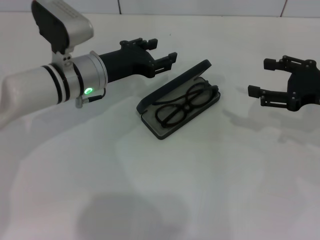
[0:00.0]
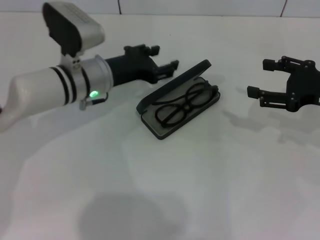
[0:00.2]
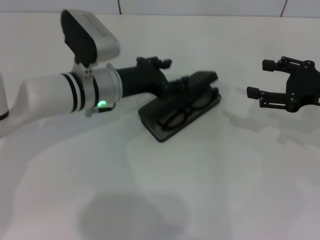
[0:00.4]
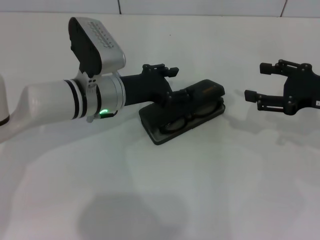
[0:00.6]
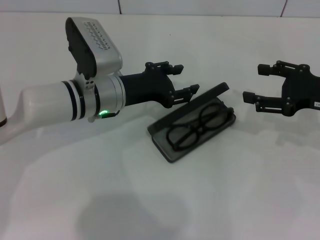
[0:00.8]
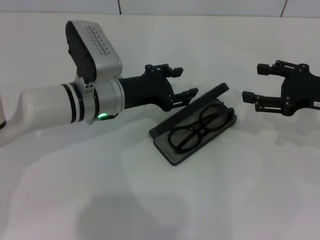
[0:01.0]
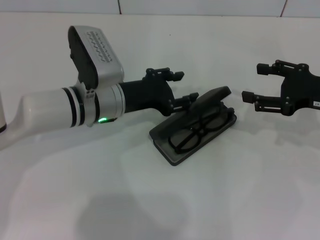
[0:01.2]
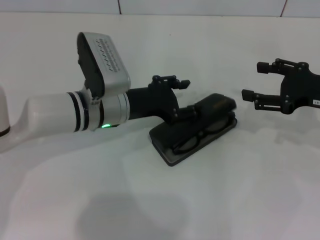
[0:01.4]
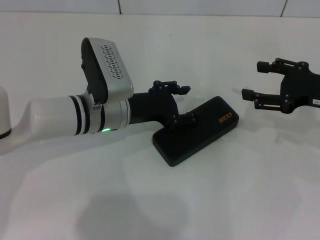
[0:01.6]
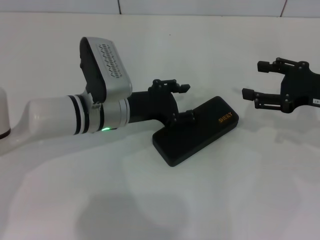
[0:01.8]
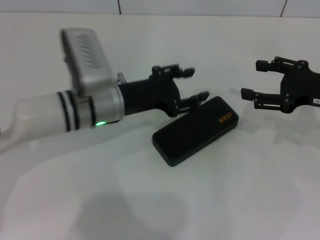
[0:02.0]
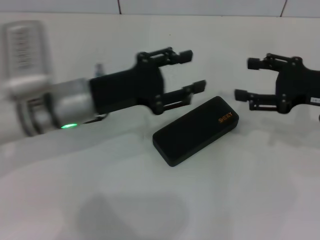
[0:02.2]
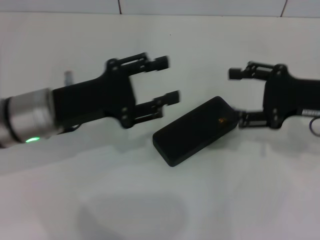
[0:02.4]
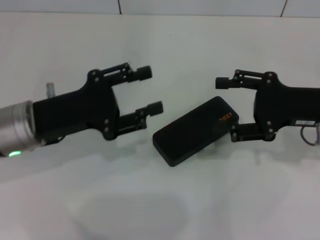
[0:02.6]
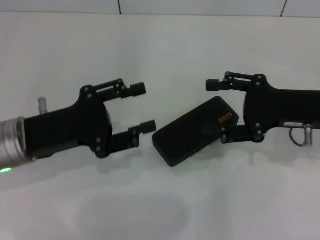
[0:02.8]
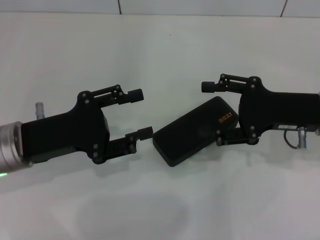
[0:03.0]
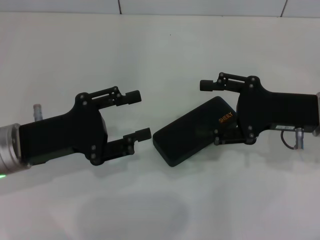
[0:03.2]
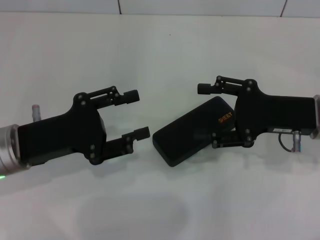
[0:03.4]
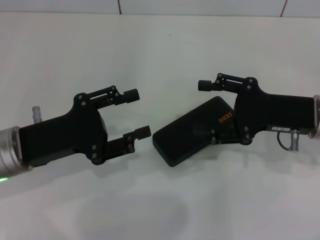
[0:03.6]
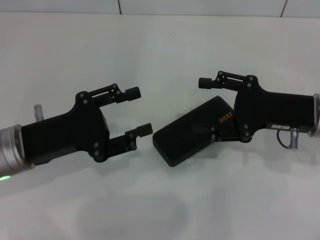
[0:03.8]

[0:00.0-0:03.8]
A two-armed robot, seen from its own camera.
Step, 0:00.0 to 0:01.6: Close the glasses case with your left hand.
0:01.2 to 0:02.6: The left gripper heads to the left and backward, covering approximately 10 cm.
0:02.6 to 0:03.8: The grippers make only small movements.

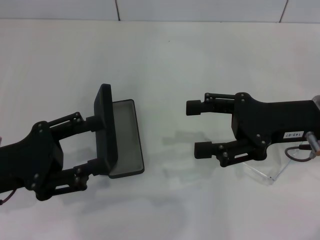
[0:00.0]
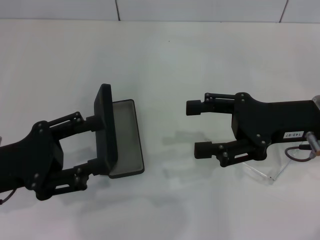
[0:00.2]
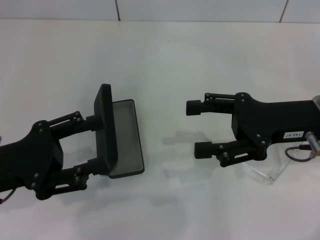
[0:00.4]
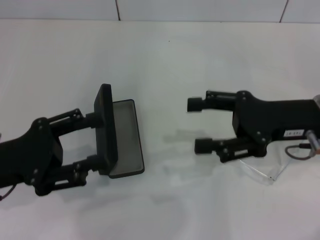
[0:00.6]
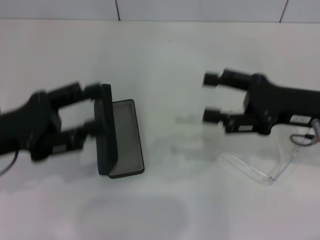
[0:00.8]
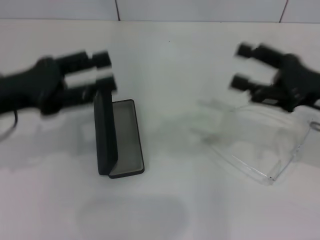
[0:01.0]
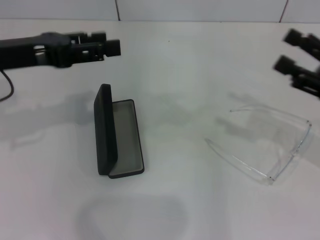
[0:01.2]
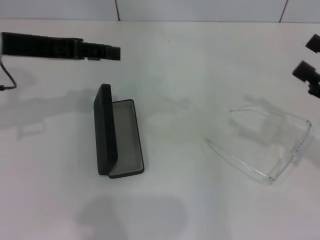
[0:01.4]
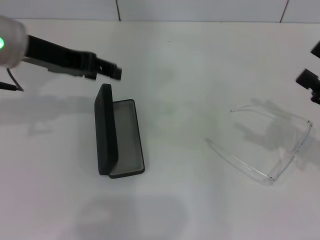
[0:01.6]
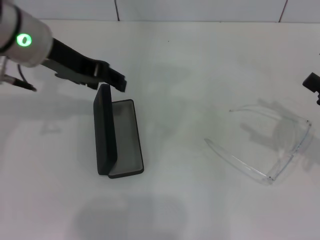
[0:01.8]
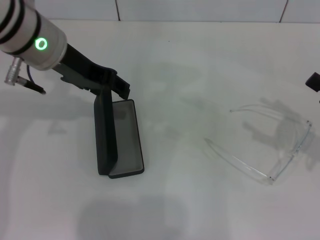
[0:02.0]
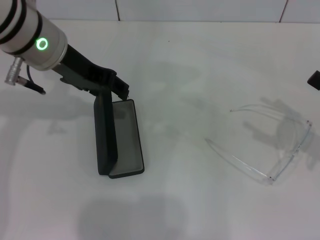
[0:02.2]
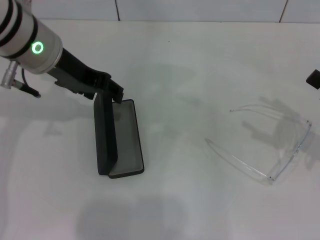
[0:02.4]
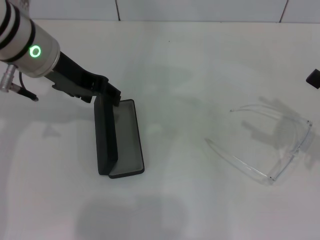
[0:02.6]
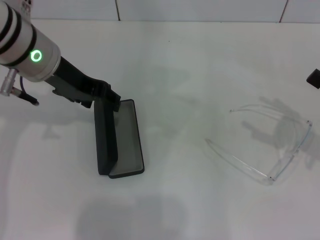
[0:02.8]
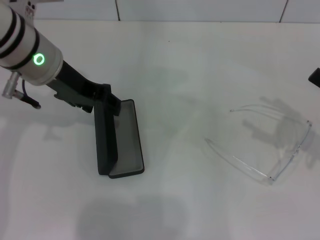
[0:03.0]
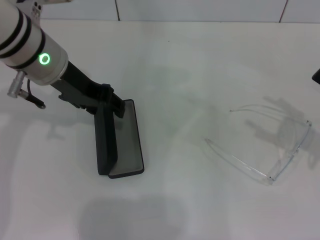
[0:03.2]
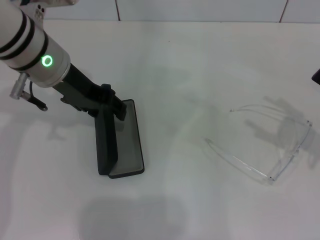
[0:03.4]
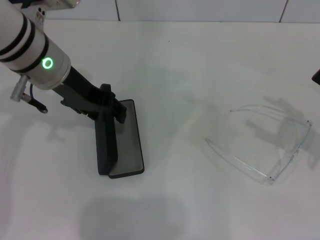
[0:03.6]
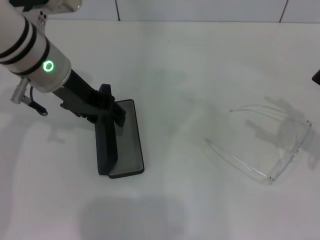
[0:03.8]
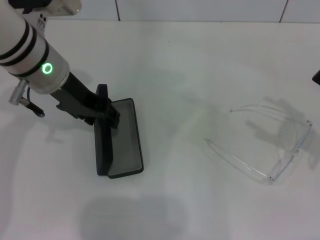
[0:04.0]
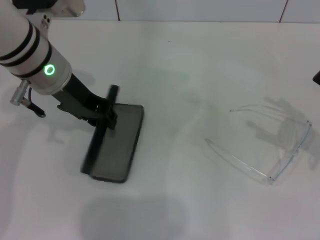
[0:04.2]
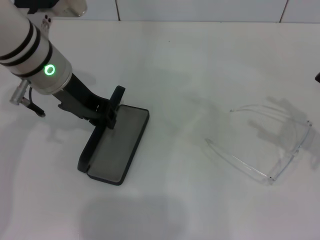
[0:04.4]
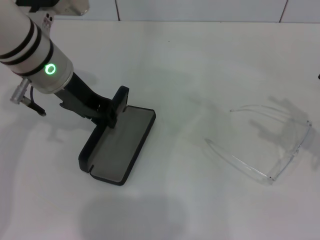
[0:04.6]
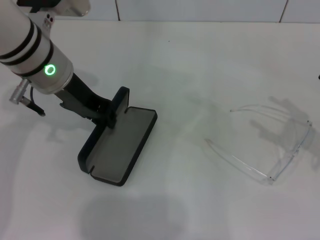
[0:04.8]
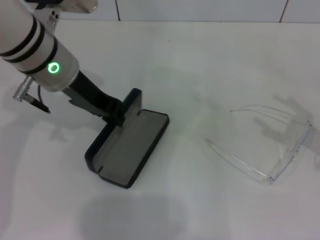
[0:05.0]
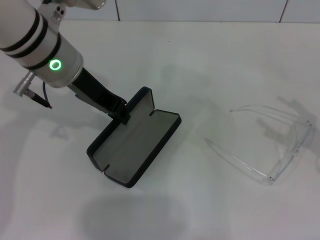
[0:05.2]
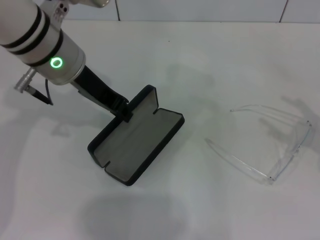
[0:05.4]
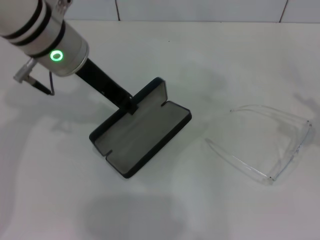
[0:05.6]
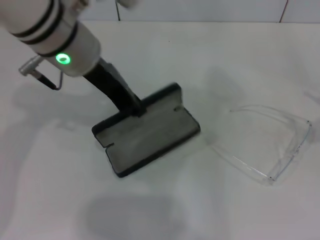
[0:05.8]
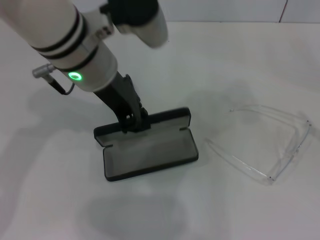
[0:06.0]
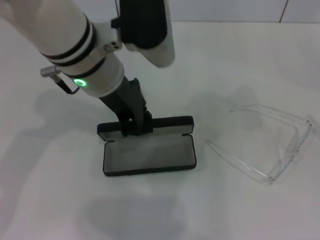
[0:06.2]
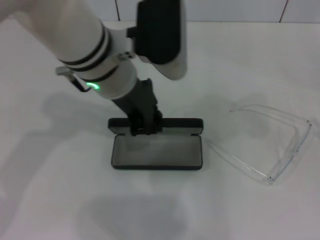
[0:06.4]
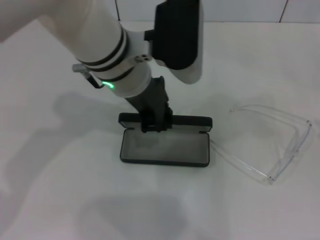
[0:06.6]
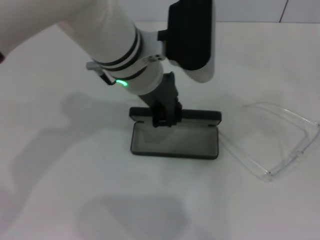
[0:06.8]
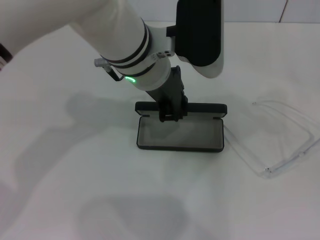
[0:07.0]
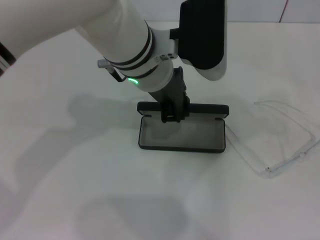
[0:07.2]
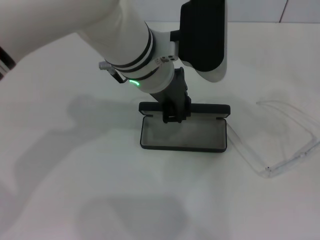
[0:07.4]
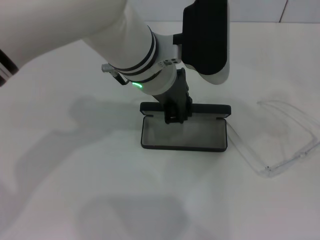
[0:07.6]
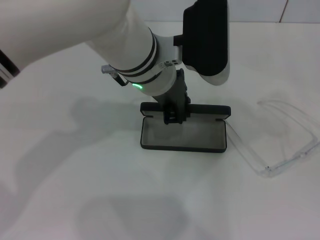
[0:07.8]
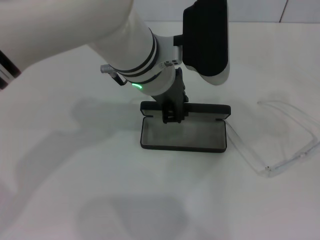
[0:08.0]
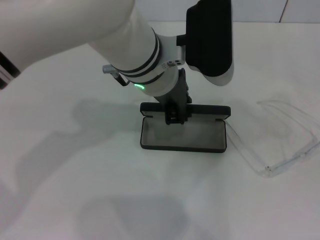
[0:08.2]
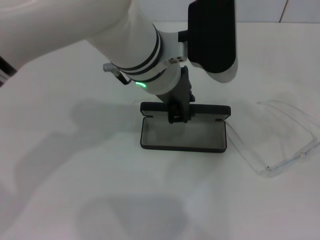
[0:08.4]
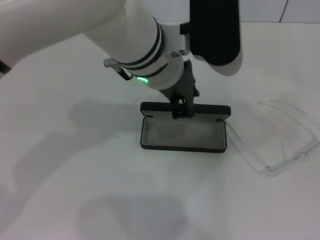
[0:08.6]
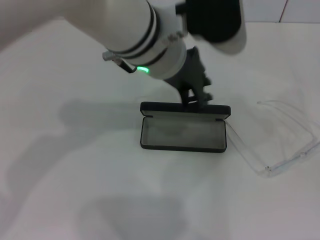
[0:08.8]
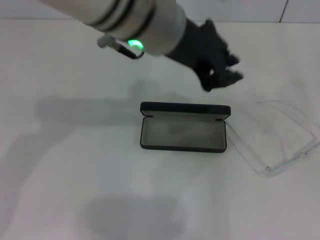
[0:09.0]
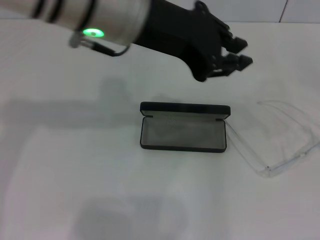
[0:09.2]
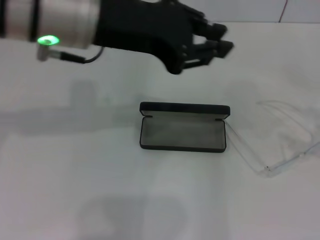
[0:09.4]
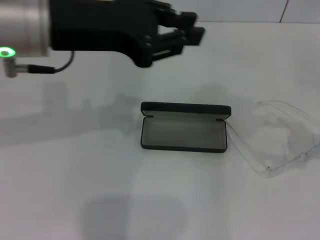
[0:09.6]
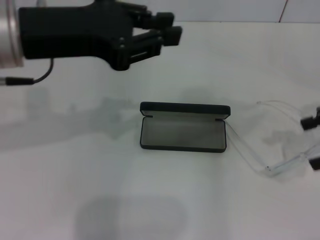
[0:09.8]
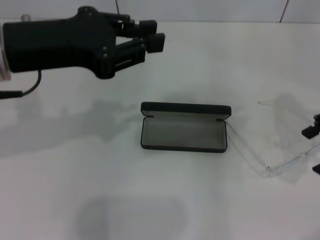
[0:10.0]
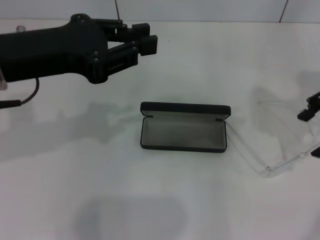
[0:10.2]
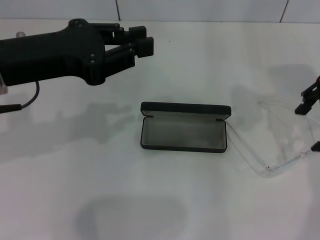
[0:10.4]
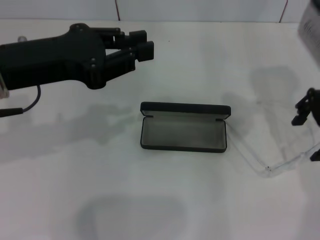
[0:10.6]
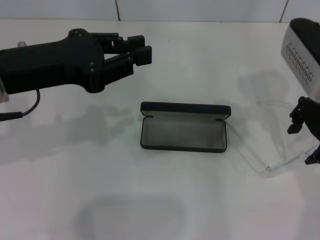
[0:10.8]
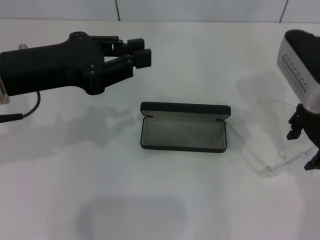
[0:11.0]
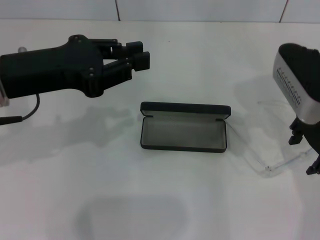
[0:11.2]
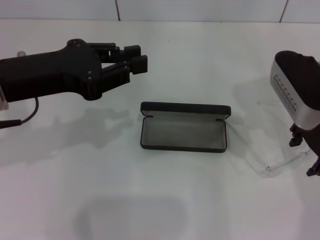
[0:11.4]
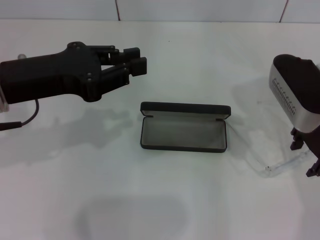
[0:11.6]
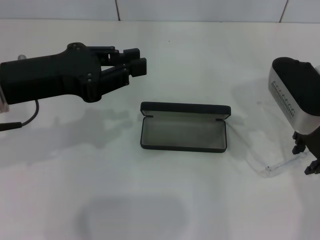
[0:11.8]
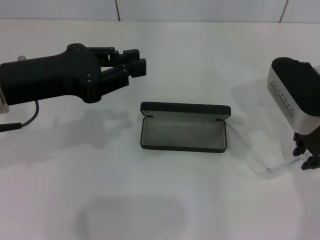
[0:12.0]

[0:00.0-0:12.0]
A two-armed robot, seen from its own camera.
Step, 0:00.0 to 0:04.6: Grab the glasses case with your left hand.
Step, 0:04.8 to 0:08.4: Place the glasses case in the center of the table with your left hand.
0:00.0 to 0:01.6: The left gripper heads forward, upward and to the right, covering about 20 cm, while the right gripper is displaced to the right by some 10 cm.
0:01.6 to 0:03.0: The grippers make only small movements.
0:03.0 to 0:04.4: The grippers move only a little.
0:04.4 to 0:06.0: The right gripper changes place by some 5 cm. Meanwhile the left gripper shifts about 5 cm to the right.
0:06.0 to 0:07.6: The left gripper shifts roughly 5 cm to the right.
0:07.6 to 0:09.0: The left gripper goes roughly 10 cm upward.
0:09.0 to 0:10.4: The right gripper shifts some 30 cm forward, to the left and upward, while the left gripper moves to the left, about 15 cm.
0:10.4 to 0:12.0: The right gripper shifts approximately 10 cm downward, and closes up.

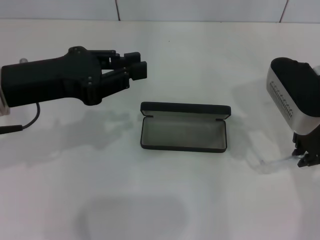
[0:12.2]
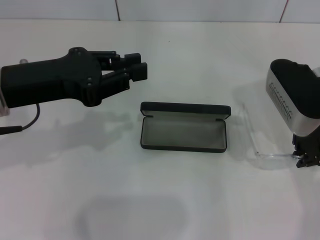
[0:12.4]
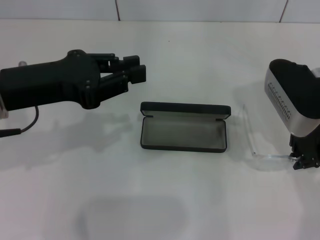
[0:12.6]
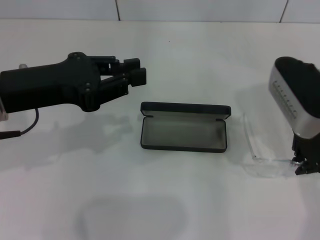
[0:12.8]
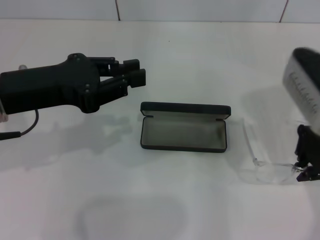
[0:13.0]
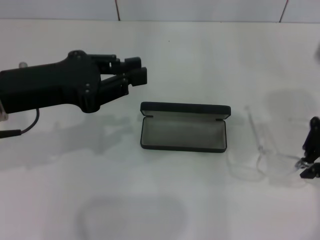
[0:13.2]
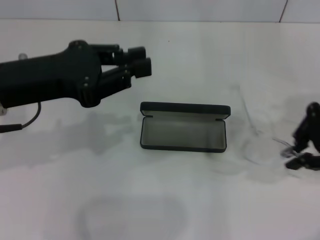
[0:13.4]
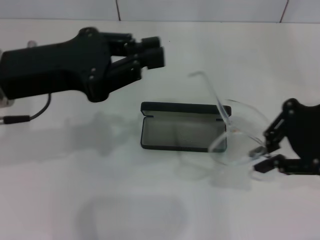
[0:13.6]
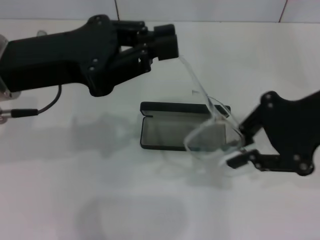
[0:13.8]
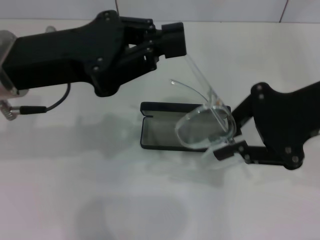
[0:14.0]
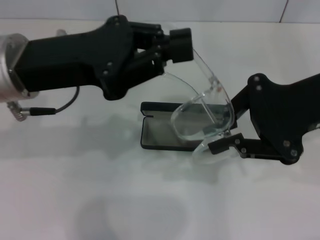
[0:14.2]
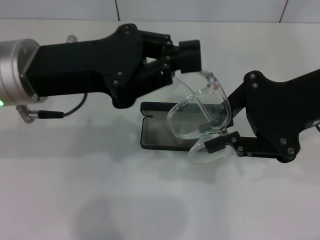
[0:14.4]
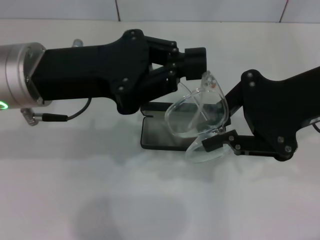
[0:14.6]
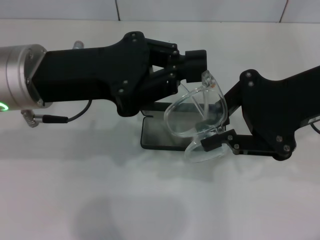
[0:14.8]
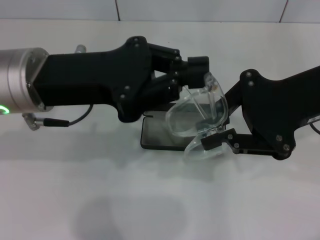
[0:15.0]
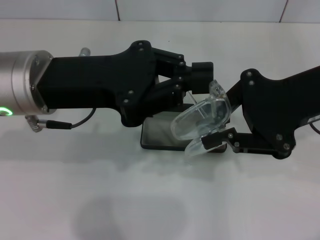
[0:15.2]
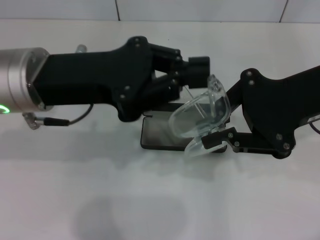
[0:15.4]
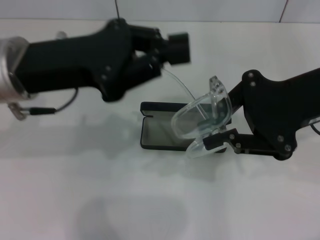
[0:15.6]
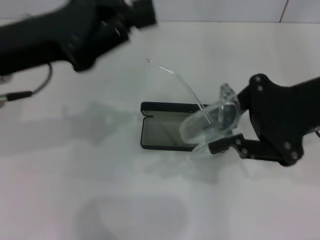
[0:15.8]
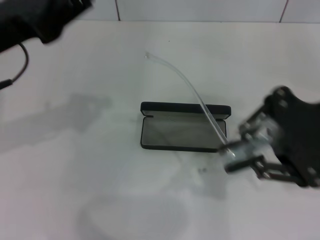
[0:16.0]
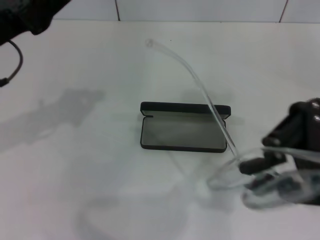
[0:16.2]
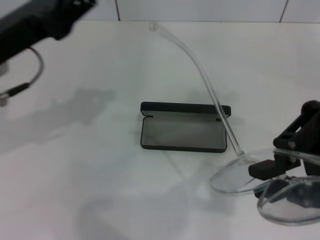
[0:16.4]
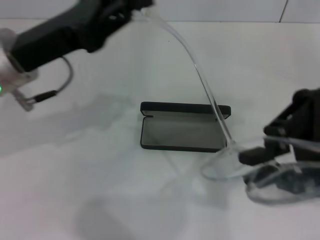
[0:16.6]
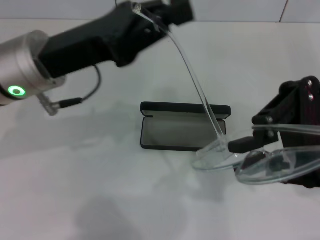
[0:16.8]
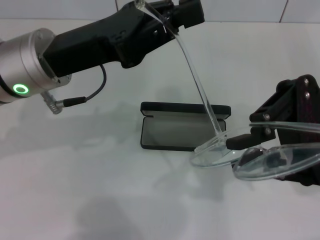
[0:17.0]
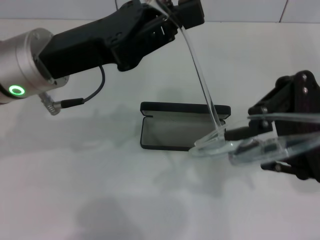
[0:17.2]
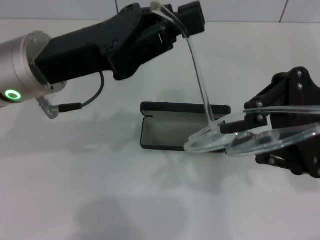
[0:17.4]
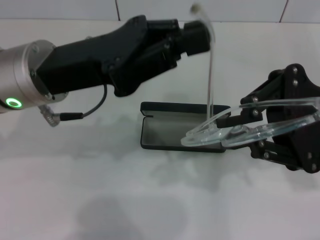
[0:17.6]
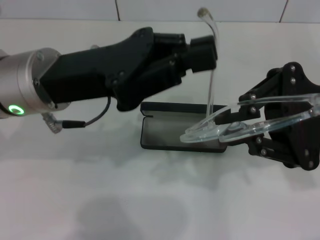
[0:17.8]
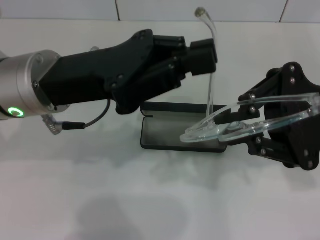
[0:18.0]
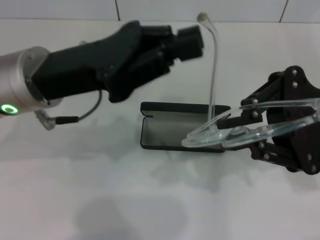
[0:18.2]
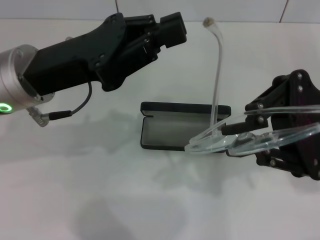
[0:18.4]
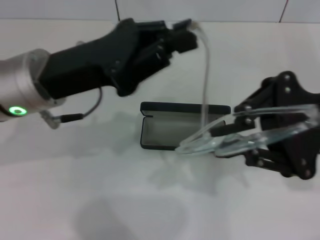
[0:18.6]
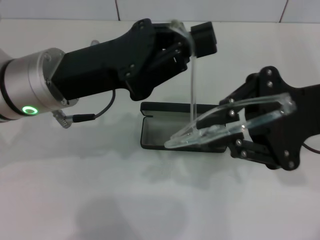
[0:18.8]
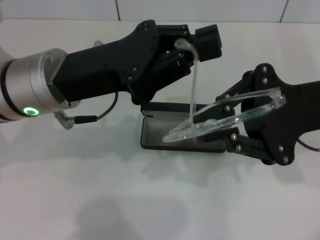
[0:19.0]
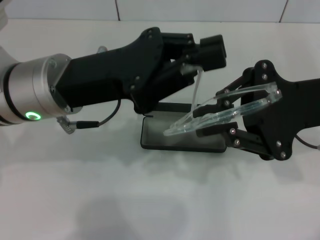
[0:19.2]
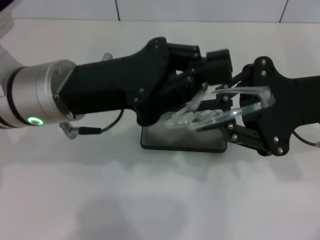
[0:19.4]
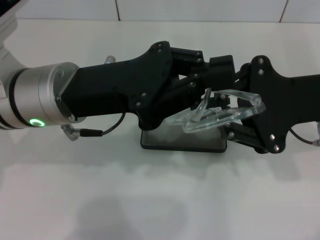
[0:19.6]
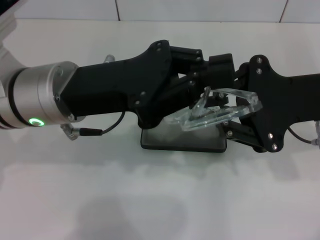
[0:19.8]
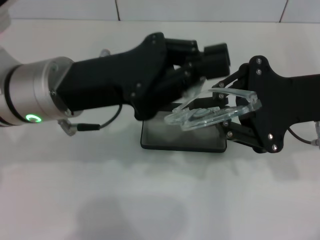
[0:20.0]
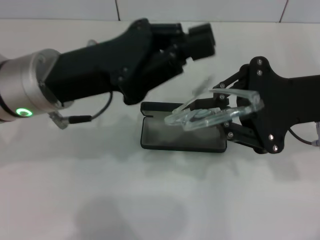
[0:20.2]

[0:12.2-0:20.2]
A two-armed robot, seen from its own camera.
0:12.2 to 0:13.8: The right gripper moves upward and backward, about 10 cm.
0:15.4 to 0:17.0: The left gripper moves approximately 10 cm to the left and comes back.
